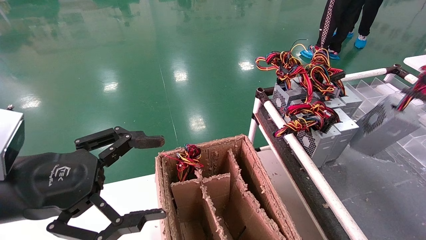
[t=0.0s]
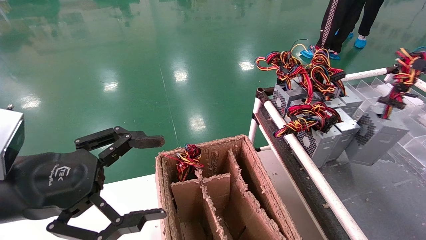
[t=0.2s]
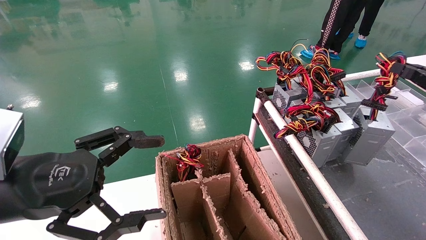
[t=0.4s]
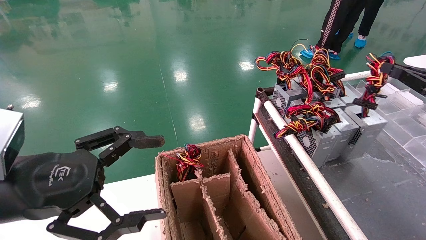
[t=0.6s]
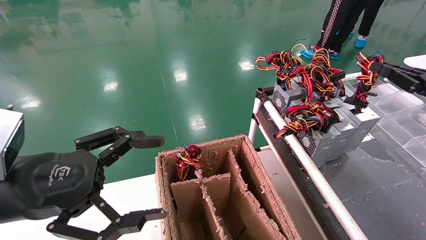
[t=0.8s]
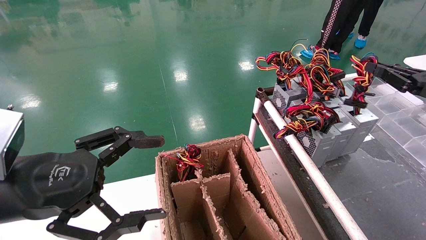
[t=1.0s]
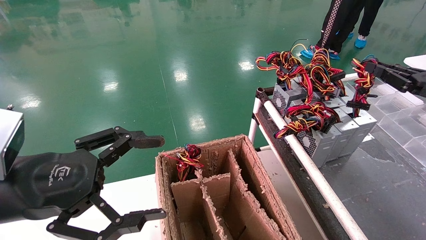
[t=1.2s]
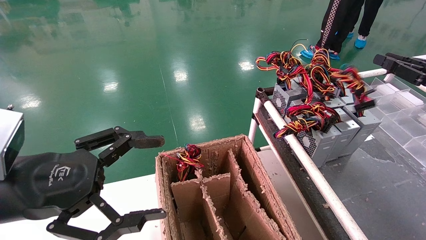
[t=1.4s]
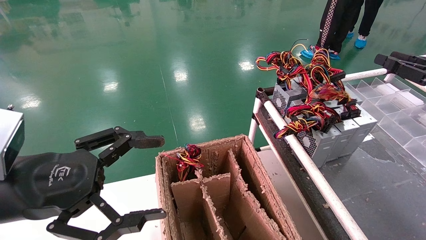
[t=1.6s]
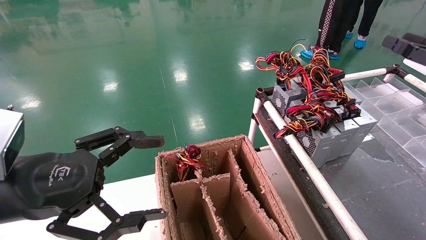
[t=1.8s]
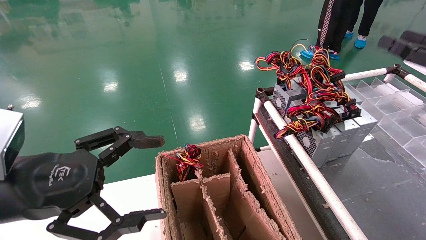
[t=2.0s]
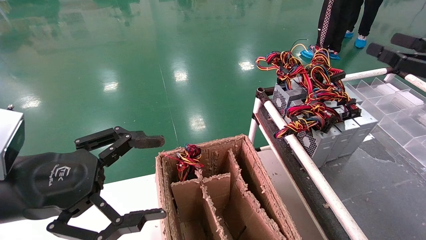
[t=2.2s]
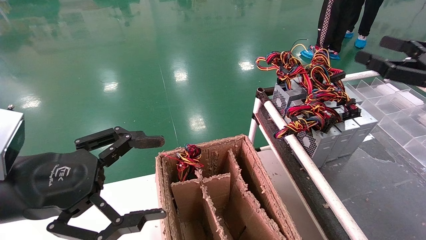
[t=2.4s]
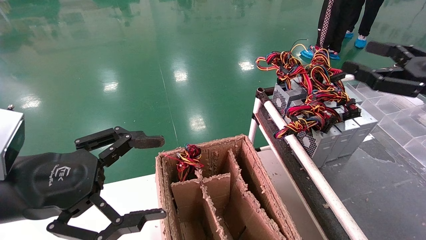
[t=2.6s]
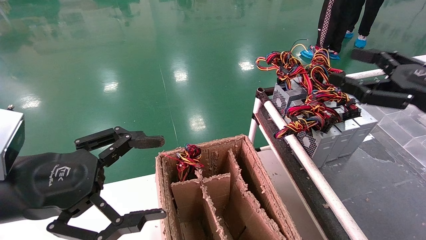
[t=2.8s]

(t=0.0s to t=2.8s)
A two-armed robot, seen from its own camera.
t=0.0s - t=1.4s: The right gripper travels forward and to the left by about 10 cm.
t=1.4s - t=2.8s: The right gripper heads to the left, covering about 10 cm, and opens up.
